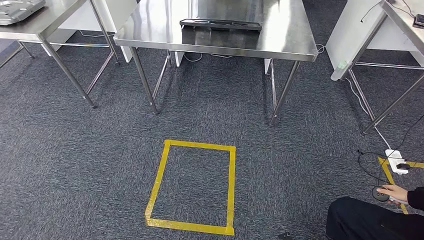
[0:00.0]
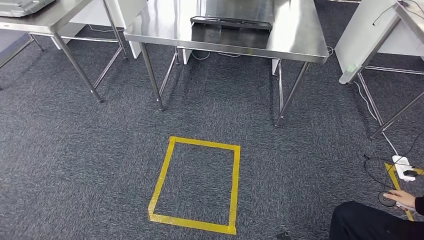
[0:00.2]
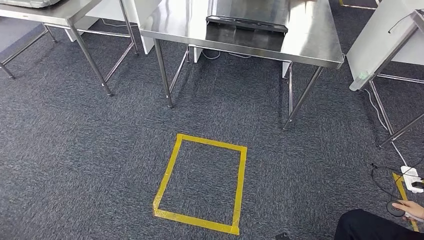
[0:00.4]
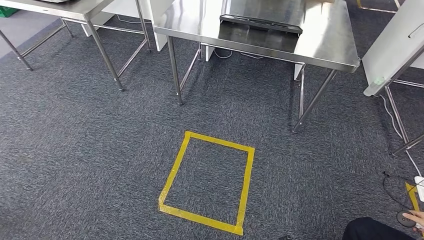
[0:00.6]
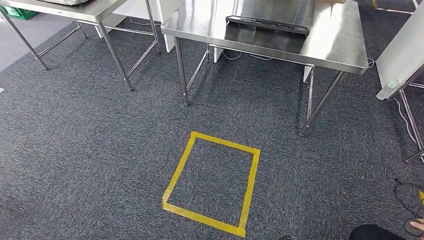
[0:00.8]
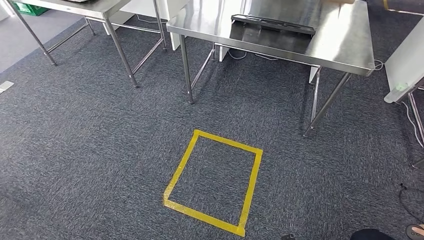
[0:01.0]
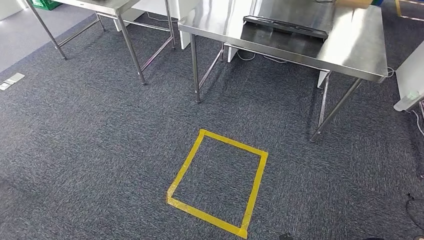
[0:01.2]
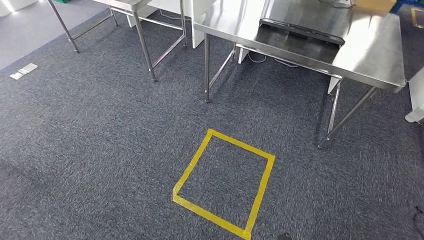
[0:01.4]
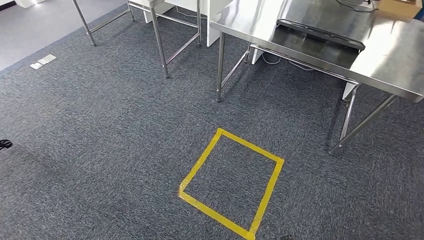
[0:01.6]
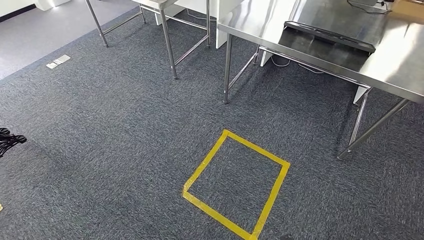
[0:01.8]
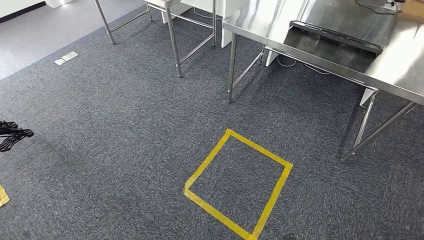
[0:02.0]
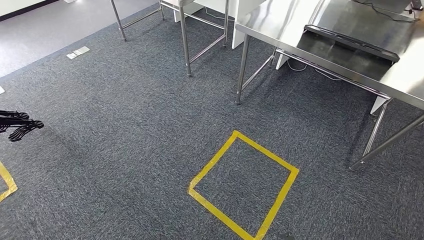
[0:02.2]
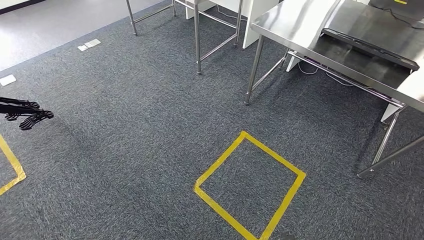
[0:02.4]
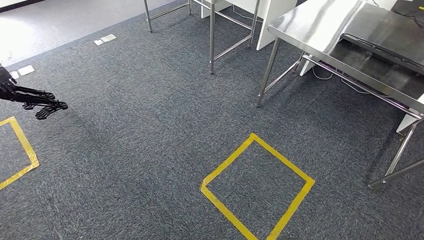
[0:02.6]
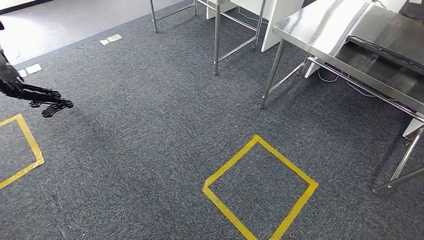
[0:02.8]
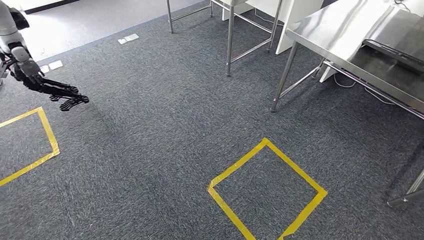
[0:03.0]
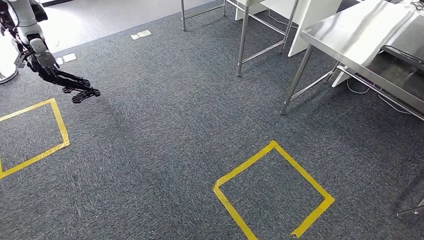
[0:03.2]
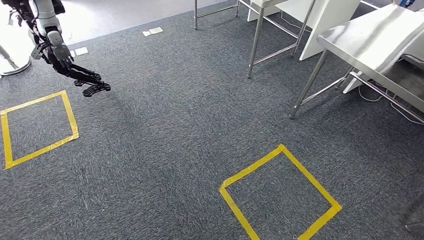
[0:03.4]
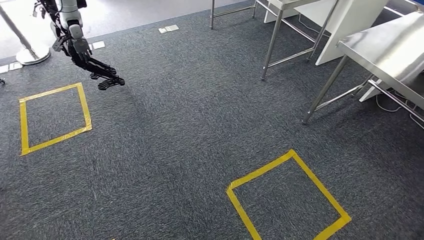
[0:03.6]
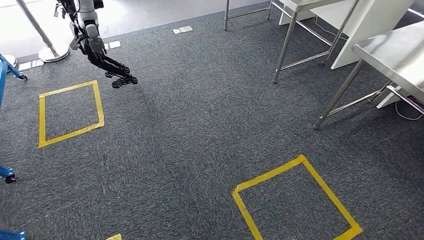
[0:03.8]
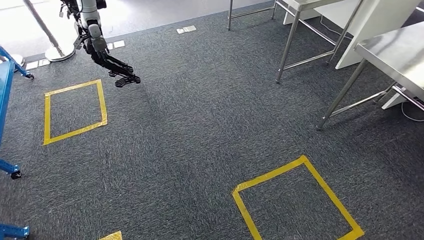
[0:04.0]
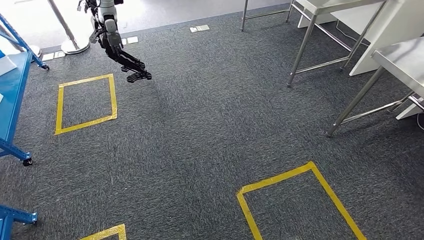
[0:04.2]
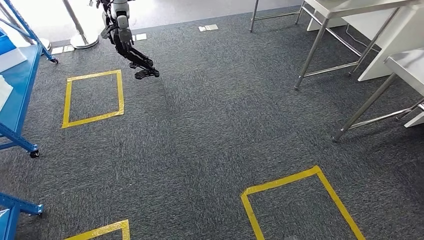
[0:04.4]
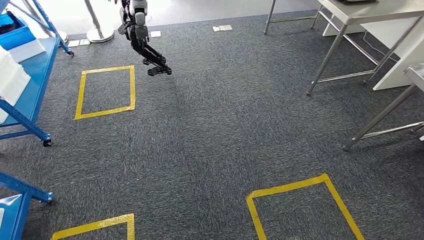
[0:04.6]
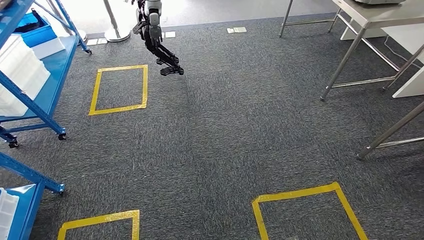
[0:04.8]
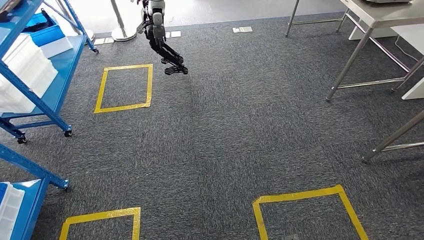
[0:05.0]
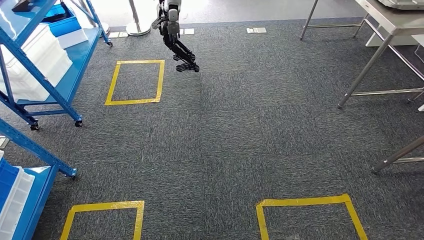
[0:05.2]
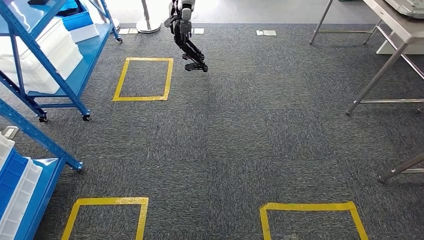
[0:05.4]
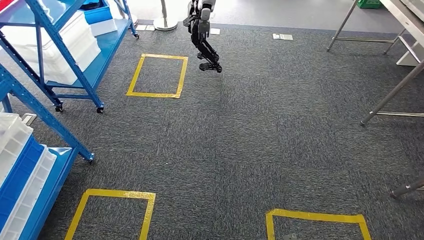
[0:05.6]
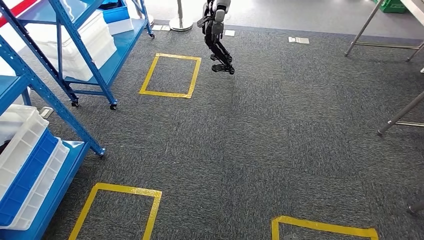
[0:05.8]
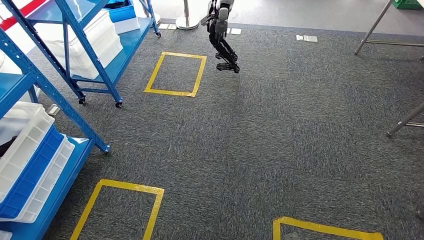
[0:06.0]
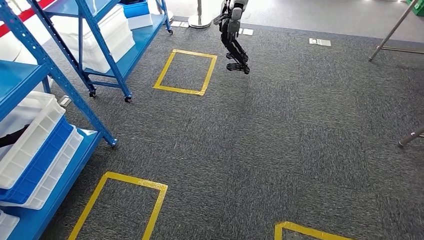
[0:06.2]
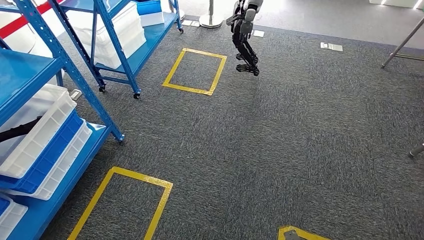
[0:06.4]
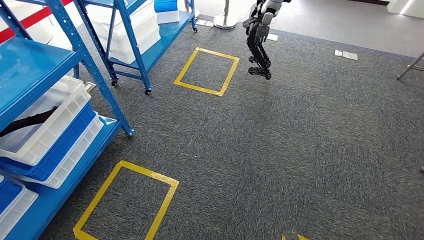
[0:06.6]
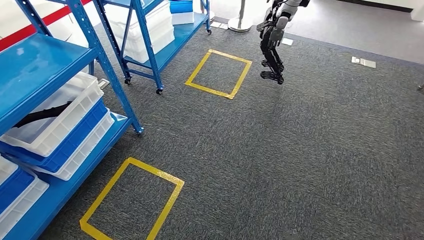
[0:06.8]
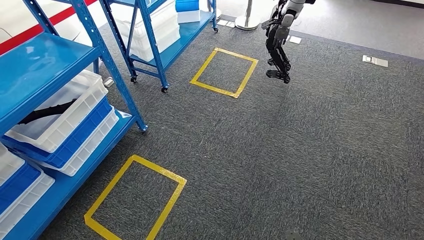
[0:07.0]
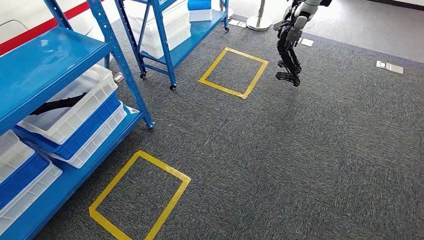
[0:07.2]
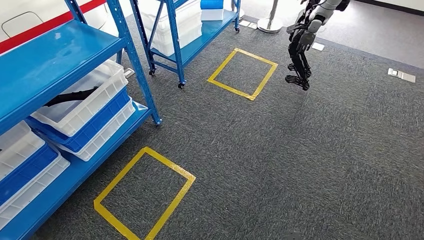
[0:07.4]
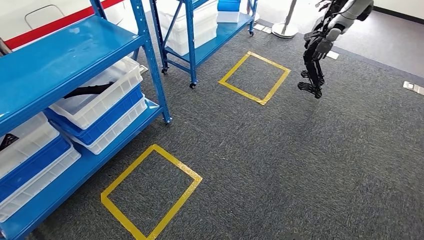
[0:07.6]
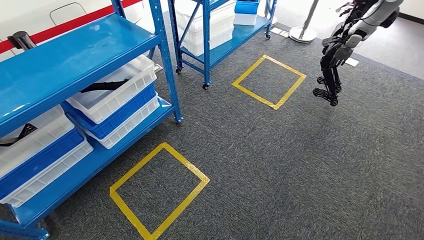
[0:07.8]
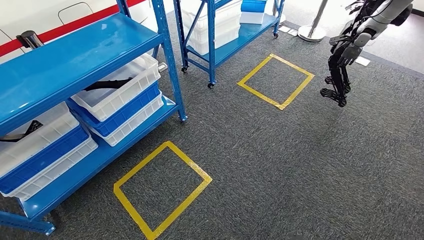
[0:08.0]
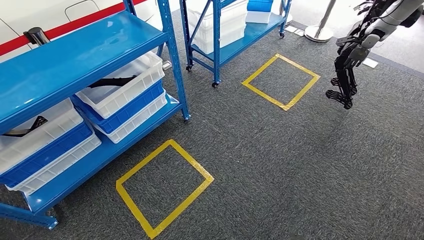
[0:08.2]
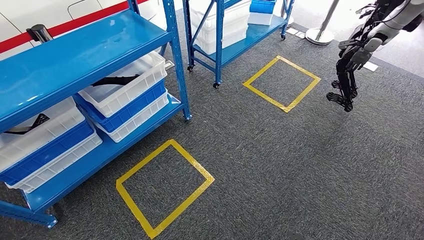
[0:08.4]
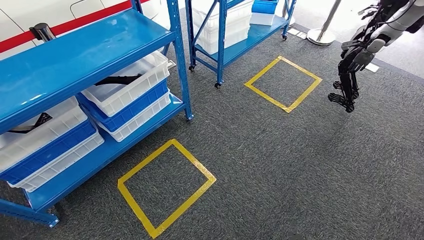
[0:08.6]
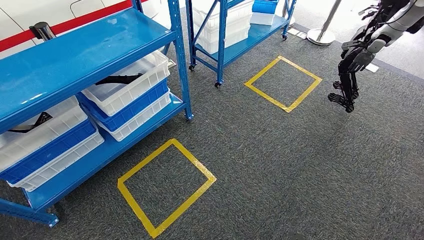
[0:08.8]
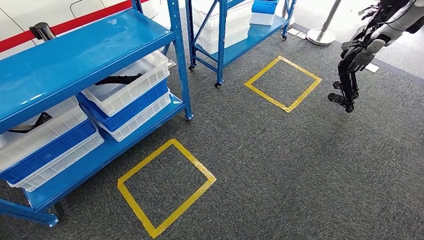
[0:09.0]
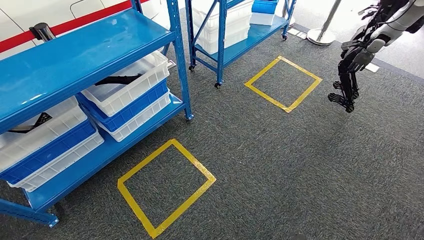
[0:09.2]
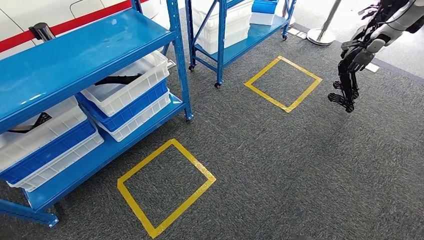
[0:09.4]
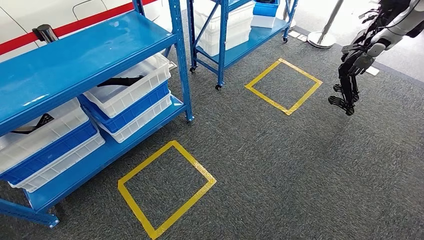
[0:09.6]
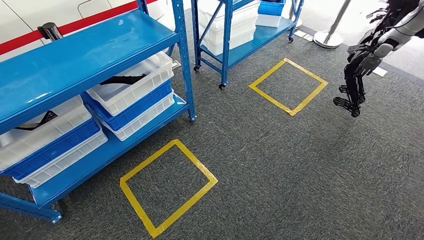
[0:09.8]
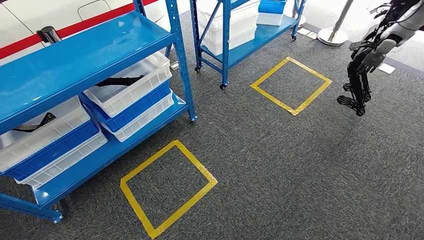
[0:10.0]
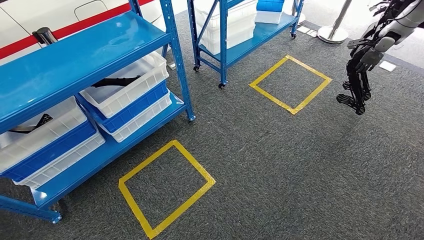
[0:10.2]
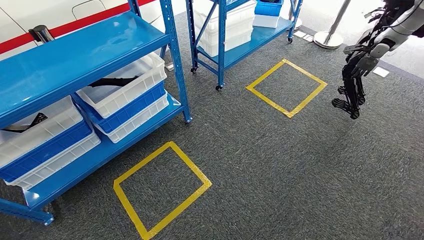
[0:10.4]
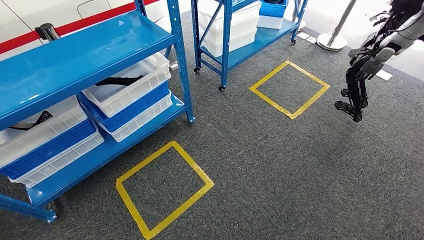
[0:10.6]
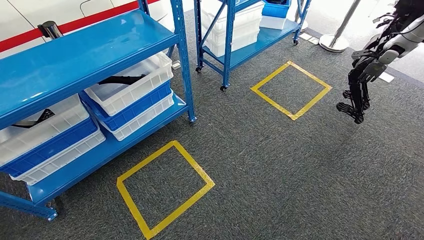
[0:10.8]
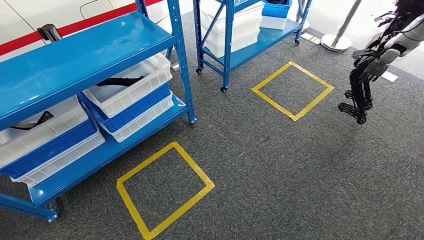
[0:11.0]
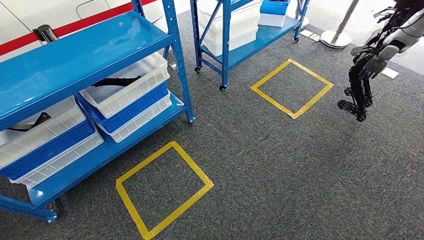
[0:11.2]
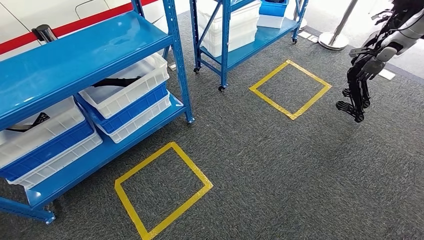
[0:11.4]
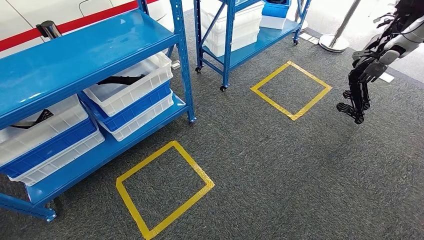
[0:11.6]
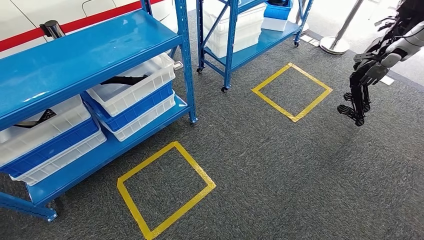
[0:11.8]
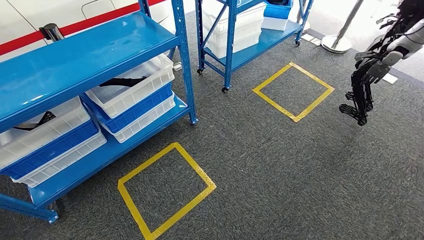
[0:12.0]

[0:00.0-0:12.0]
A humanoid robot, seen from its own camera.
0:09.0 to 0:10.4: The hands move only a little.

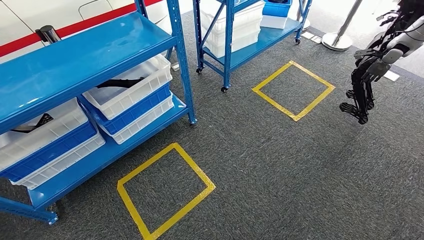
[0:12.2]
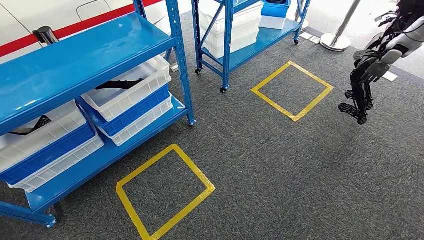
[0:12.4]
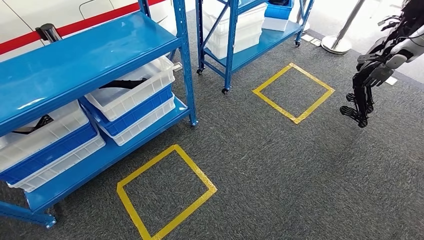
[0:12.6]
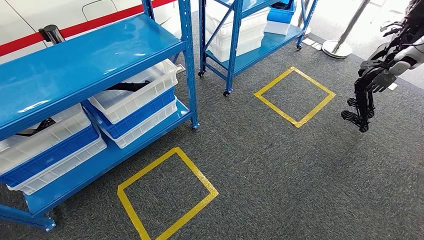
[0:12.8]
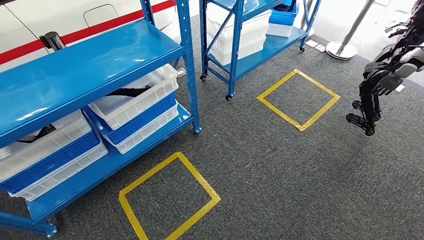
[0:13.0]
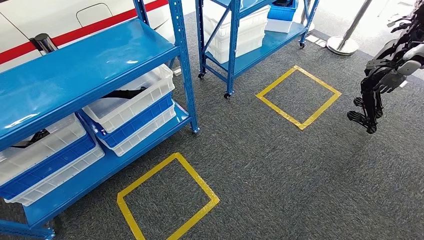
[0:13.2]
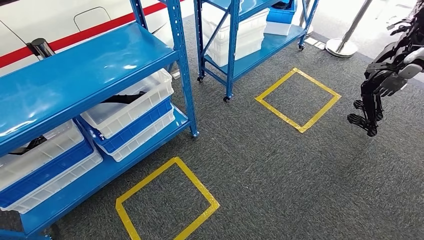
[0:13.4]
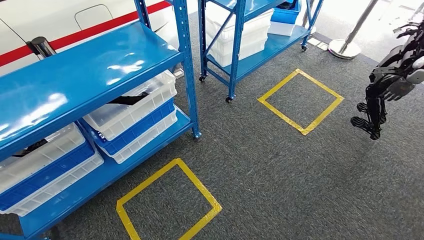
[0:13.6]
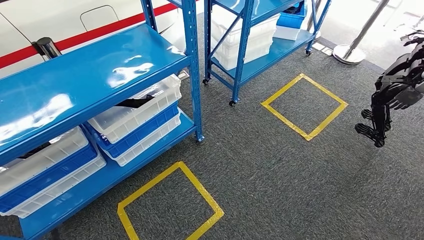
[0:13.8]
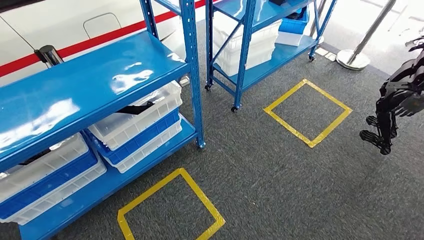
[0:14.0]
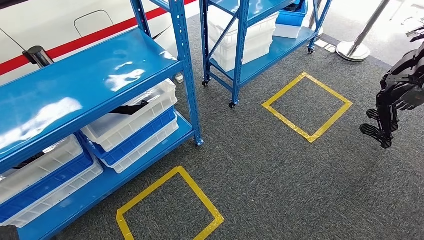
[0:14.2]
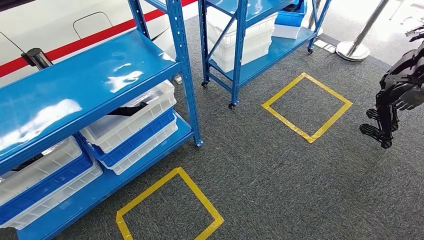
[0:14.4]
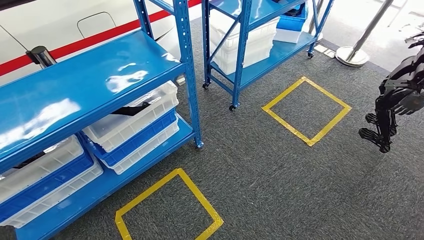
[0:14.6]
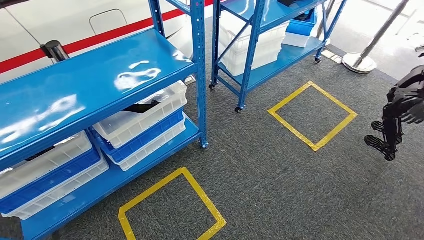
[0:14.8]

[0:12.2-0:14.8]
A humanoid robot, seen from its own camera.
Step, 0:12.2 to 0:14.6: Return to the initial position at the shelf.
